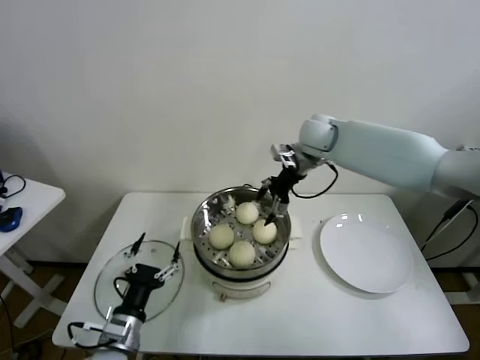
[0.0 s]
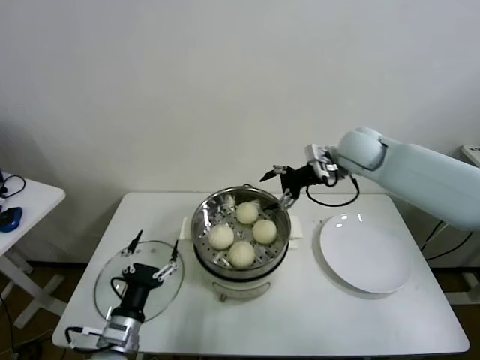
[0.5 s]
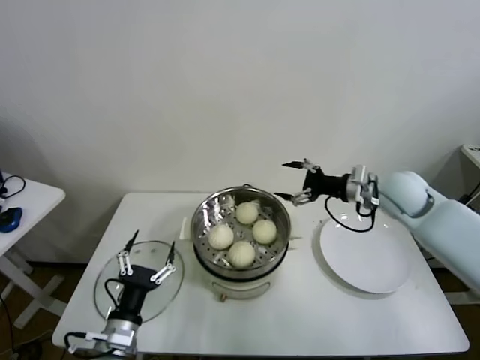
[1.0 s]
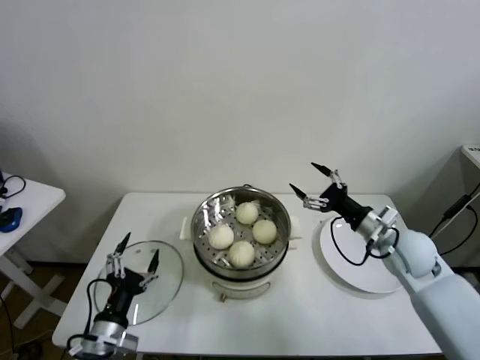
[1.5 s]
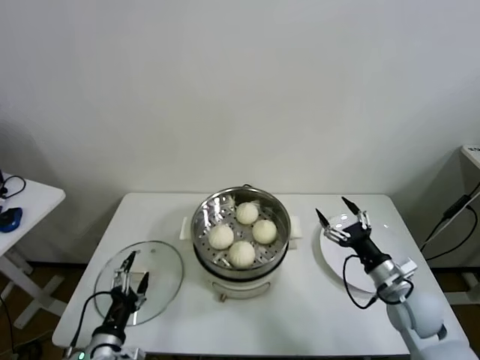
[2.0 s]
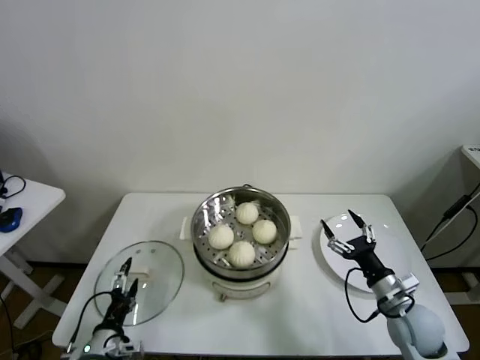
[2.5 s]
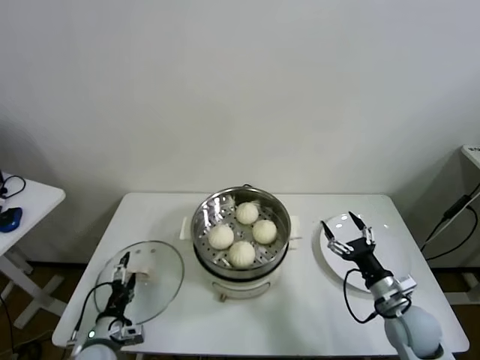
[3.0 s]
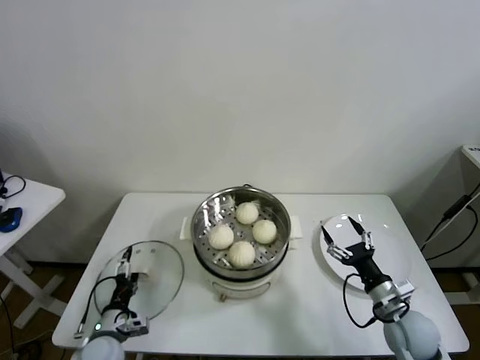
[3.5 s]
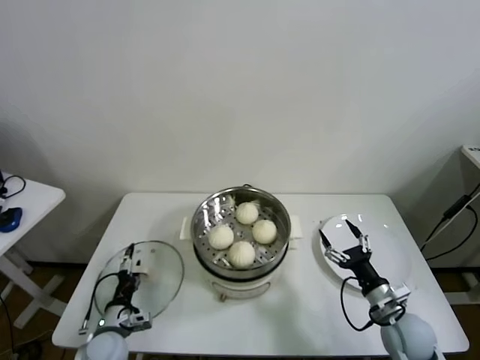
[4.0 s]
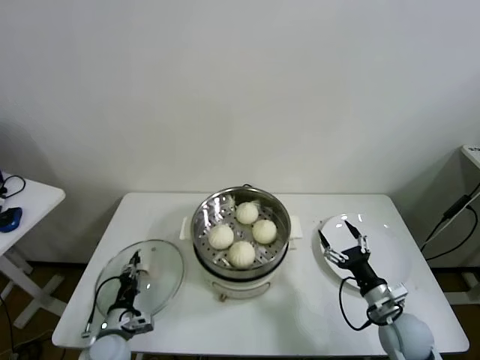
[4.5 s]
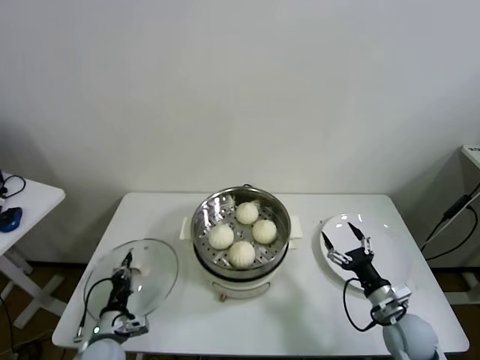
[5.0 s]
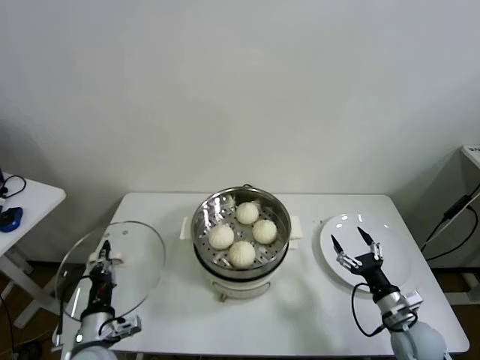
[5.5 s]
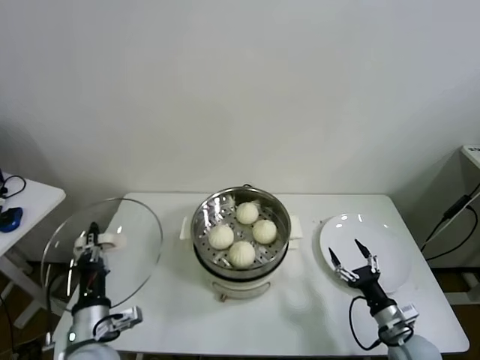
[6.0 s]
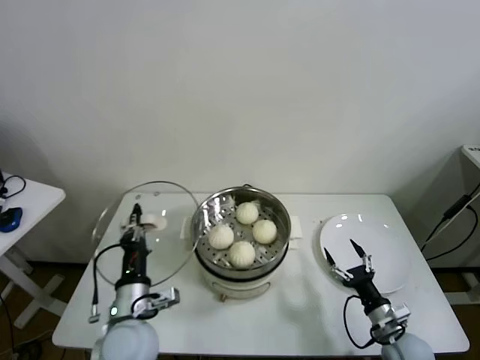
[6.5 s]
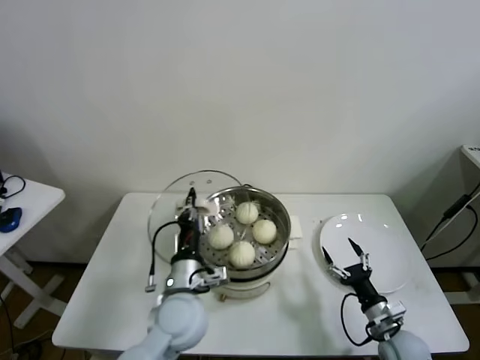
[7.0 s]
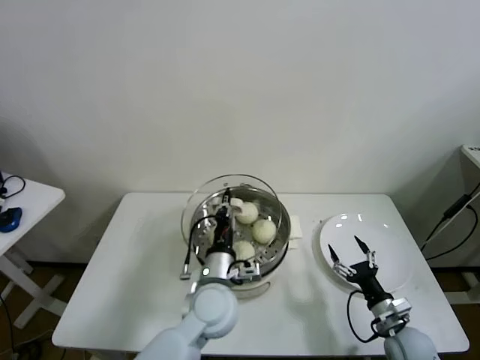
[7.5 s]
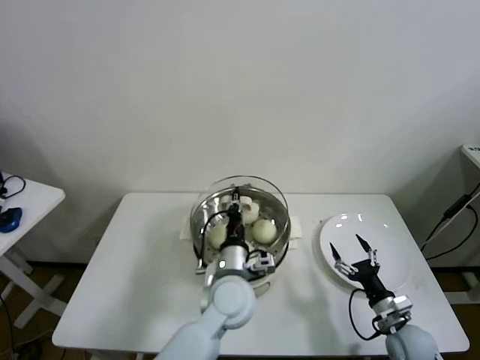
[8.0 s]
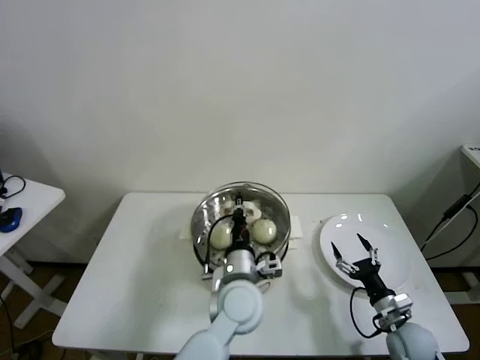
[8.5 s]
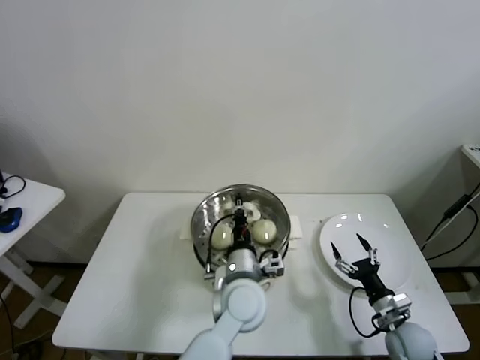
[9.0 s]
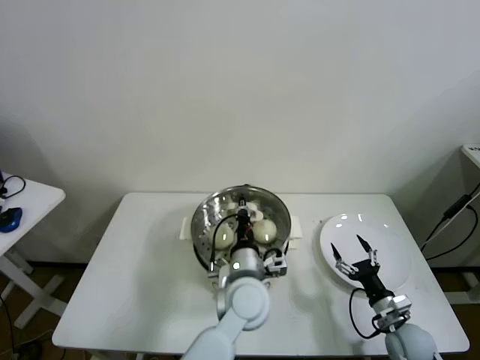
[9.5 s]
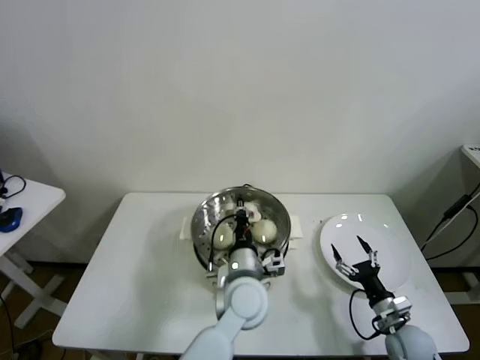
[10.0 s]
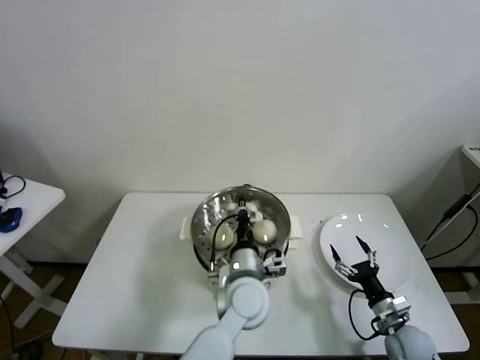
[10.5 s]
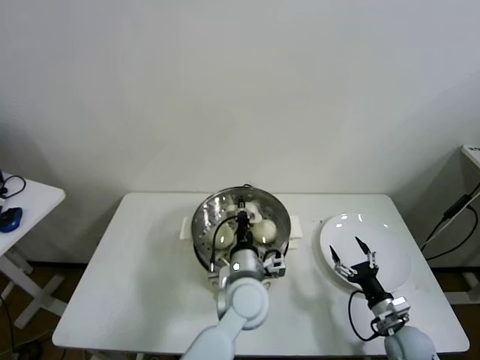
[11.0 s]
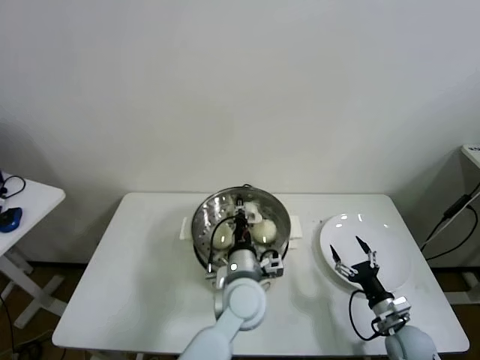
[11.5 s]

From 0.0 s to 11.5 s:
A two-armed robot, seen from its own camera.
Task of the whole recording: take steamed baozi put them in steamer.
Step, from 0.0 s to 4.5 s: Grasp the pot lid with left gripper.
From 0.0 s to 2.0 s: The right gripper travels backward, downward and to the right by approximately 40 cm. The left gripper changes place by roughly 5 cm.
From 2.0 s to 4.0 s: The right gripper heads downward, covering roughly 5 cm; the left gripper heads downward and forward, covering approximately 10 cm.
From 4.0 s to 6.0 s: The left gripper goes approximately 15 cm upward, and closes its fingers; the right gripper is displaced downward by some 5 cm.
From 6.0 s to 7.5 s: The left gripper is displaced to the right and forward by approximately 25 cm.
From 7.5 s to 9.5 s: The left gripper goes roughly 5 cm to the right.
From 9.5 s to 11.5 s: The two grippers keep their place.

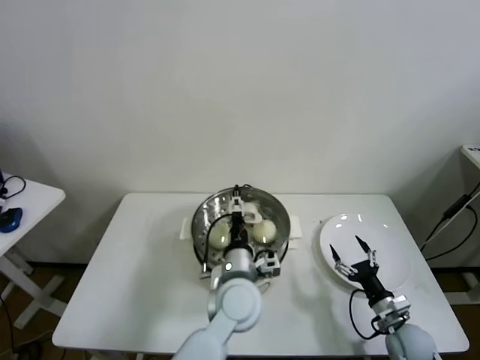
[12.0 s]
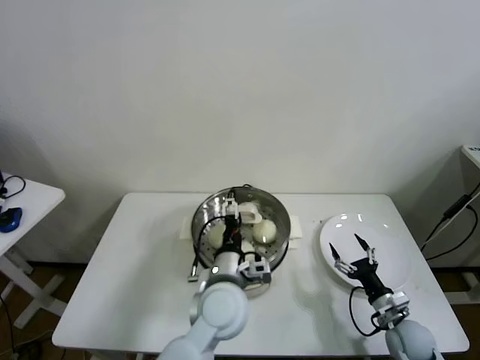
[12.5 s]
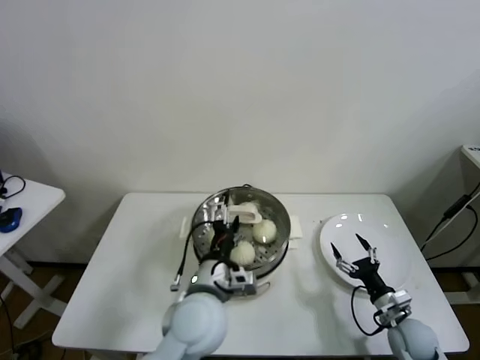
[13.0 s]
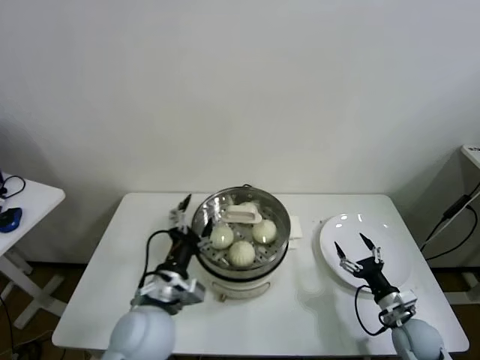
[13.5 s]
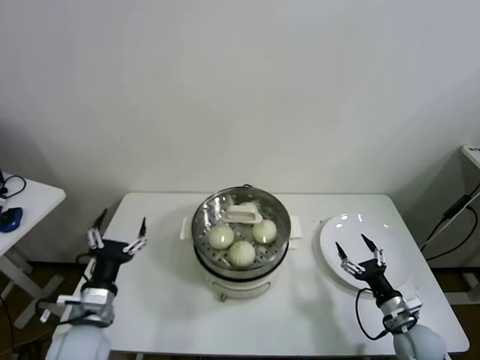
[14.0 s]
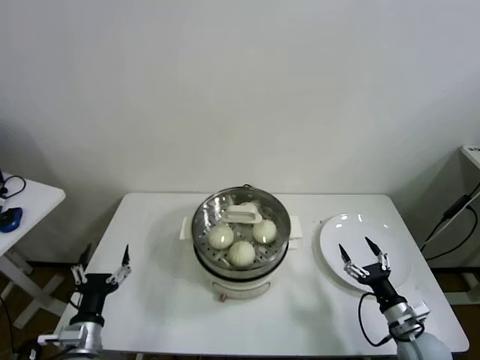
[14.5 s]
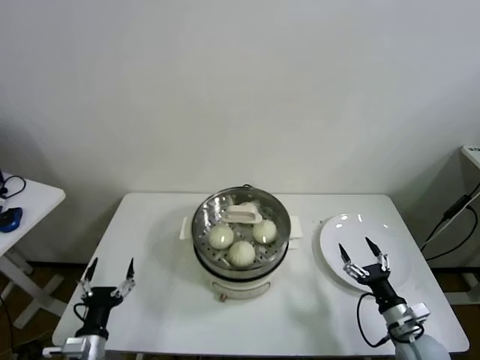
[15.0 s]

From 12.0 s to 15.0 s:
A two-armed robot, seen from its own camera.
Task of the whole recording: take steamed baozi put them in steamer.
From 12.0 s to 13.5 s: The left gripper travels to the left and backward by some 15 cm.
From 13.5 s to 15.0 s: The left gripper shifts some 25 cm to the left, downward and backward.

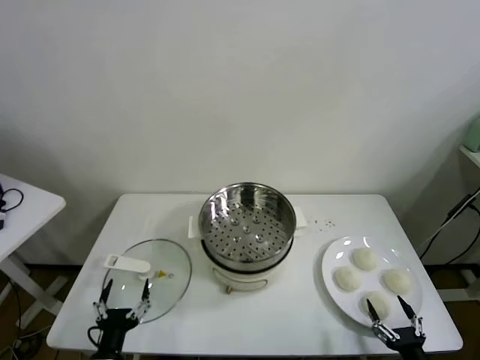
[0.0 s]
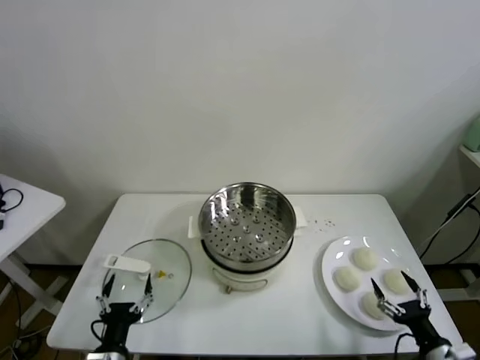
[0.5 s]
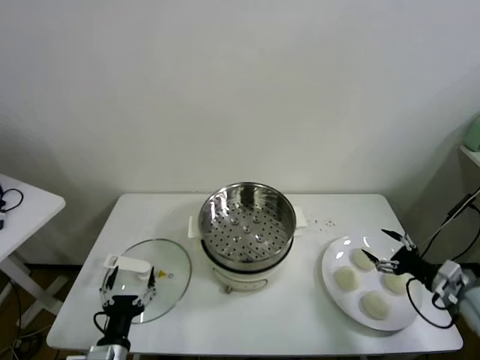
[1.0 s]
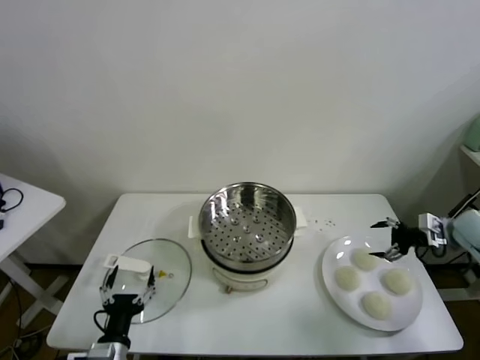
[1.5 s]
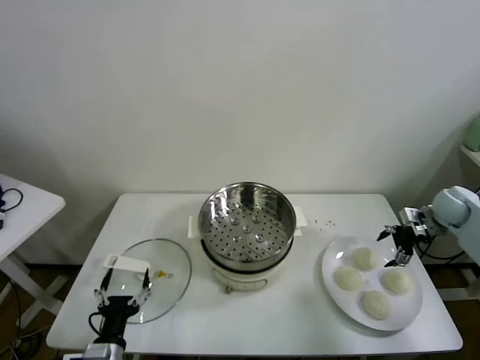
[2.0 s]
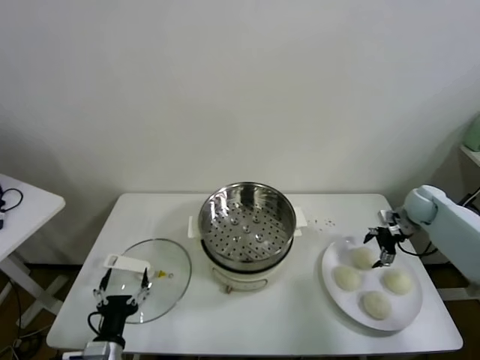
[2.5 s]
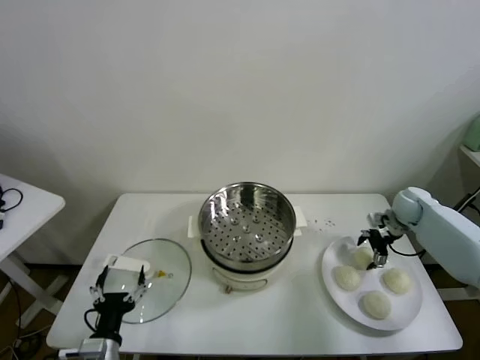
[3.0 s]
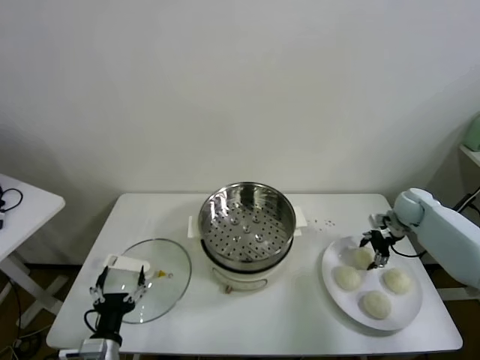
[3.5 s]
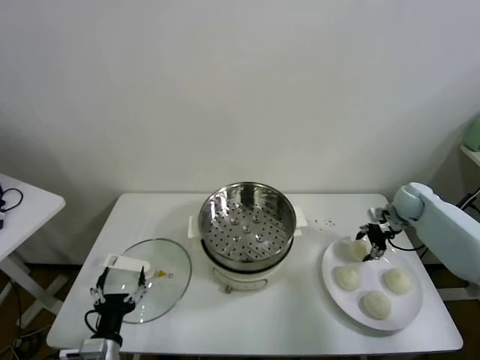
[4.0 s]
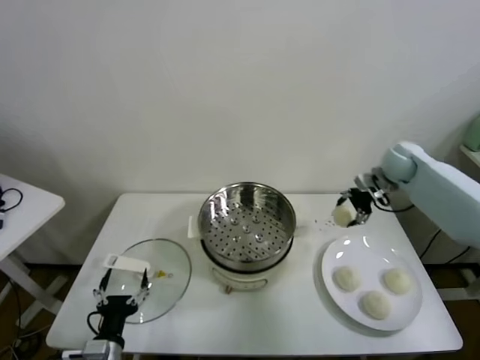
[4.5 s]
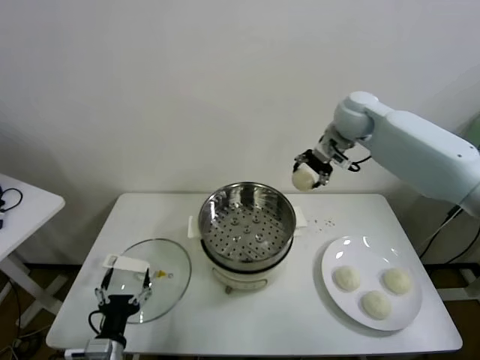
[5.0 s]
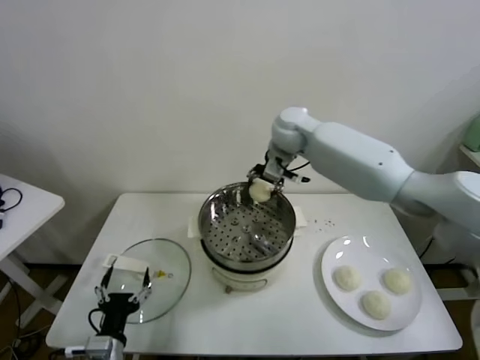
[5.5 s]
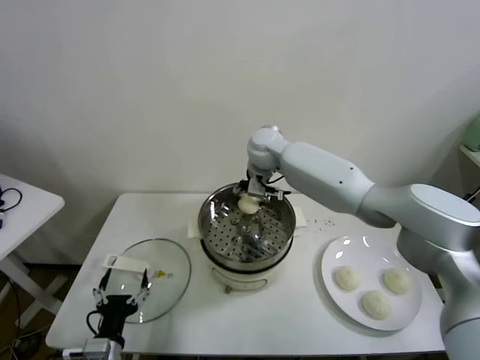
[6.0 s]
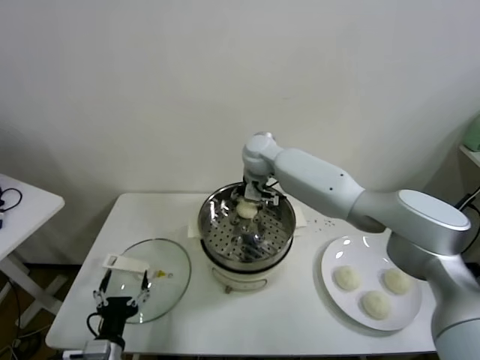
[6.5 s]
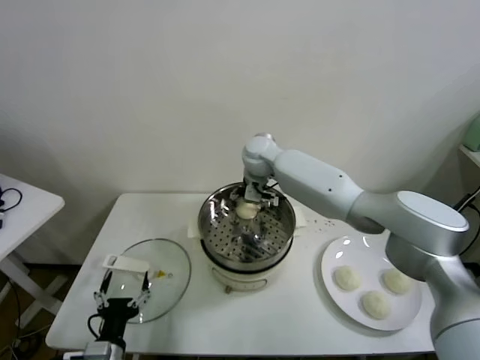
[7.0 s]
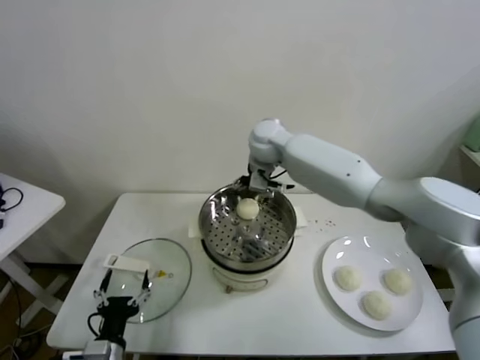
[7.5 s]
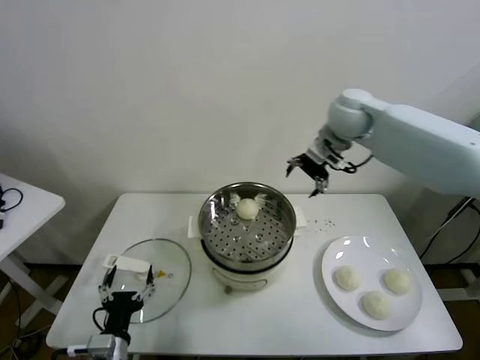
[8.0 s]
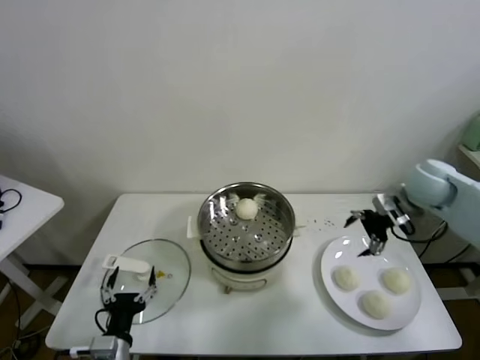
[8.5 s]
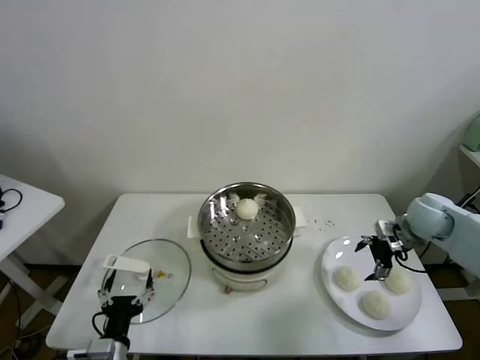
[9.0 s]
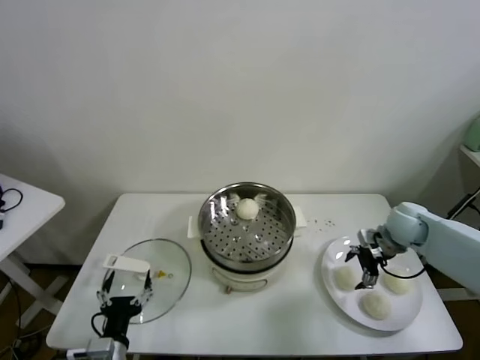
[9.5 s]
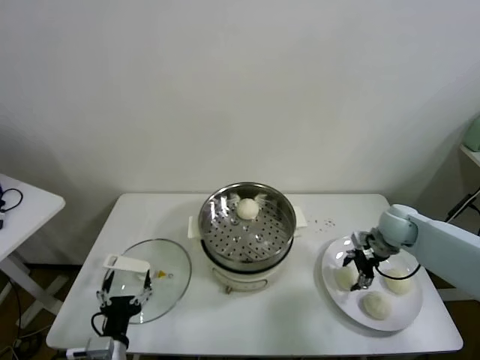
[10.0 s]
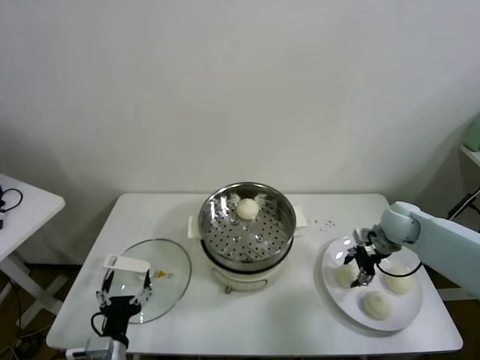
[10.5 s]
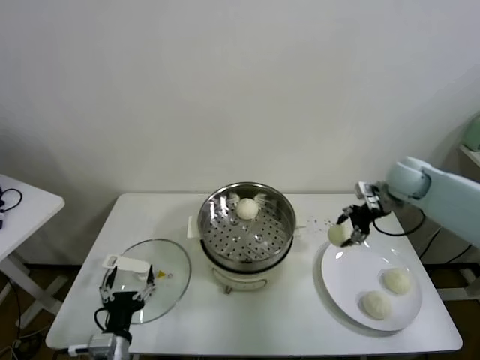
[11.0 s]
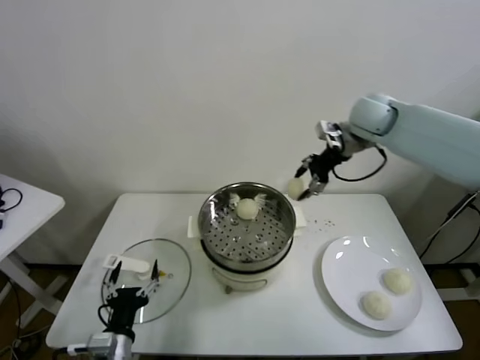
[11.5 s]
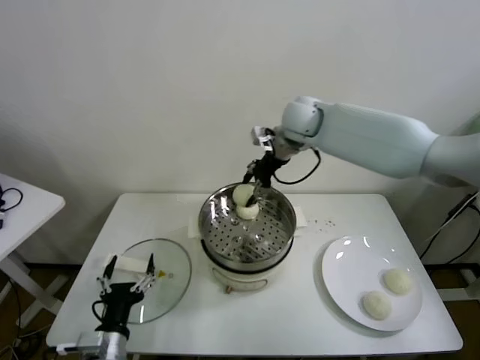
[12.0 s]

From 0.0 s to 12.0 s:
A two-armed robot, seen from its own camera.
Task of the whole recording: take steamed baozi put them in steamer.
Step, from 0.0 s to 3.5 s: Grasp the baozi in the plate with right gripper.
Step, from 4.0 s to 7.0 s: Place the baozi on the steamer with right gripper.
Step, from 7.5 s to 10.0 s: Grasp the baozi in the plate with right gripper.
From 2.0 s to 4.0 s: The right gripper shifts some 5 cm to the left, and closes.
From 4.0 s to 6.0 s: The right gripper travels to the left by some 40 cm.
From 6.0 s to 8.0 s: The right gripper is displaced to the right and upward by roughly 25 cm, and opens.
From 8.0 s to 10.0 s: The right gripper heads downward and to the right, covering roughly 30 cm, and closes.
From 10.0 s to 12.0 s: The right gripper shifts about 35 cm to the left, upward and forward.
